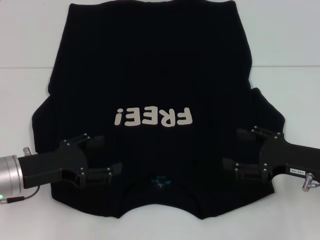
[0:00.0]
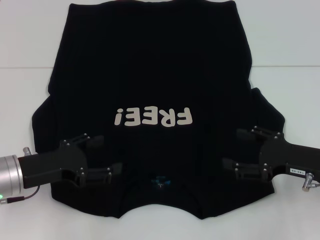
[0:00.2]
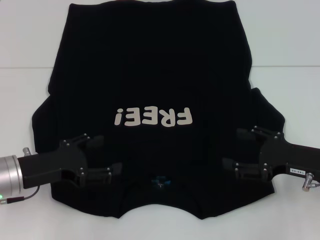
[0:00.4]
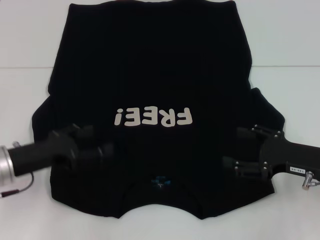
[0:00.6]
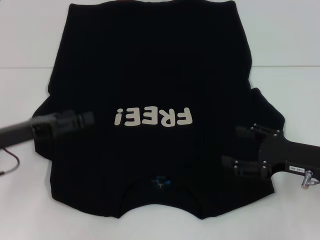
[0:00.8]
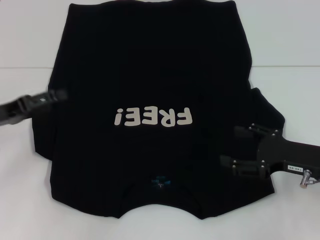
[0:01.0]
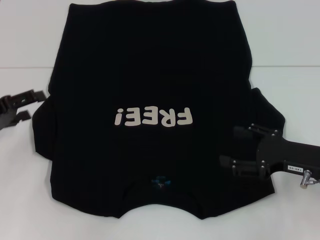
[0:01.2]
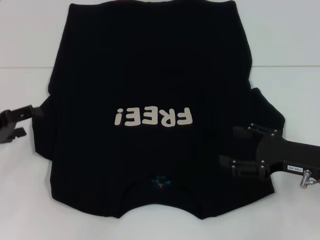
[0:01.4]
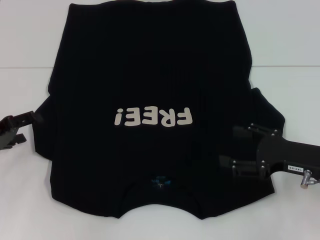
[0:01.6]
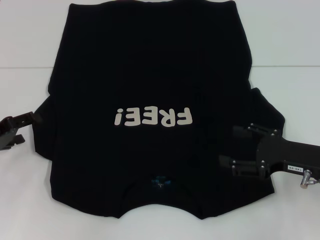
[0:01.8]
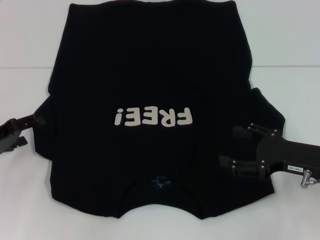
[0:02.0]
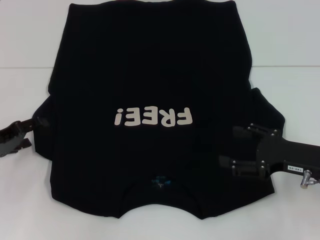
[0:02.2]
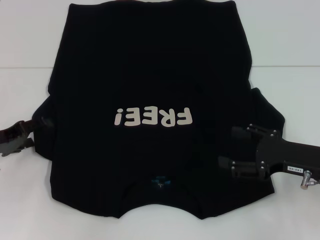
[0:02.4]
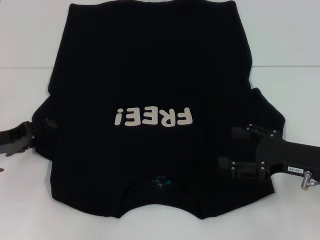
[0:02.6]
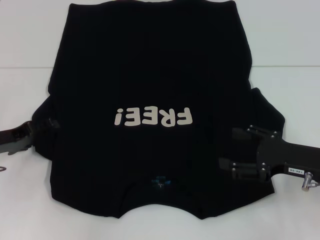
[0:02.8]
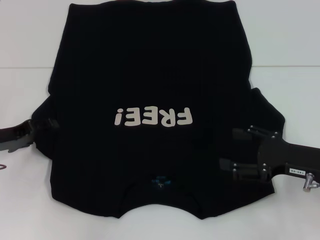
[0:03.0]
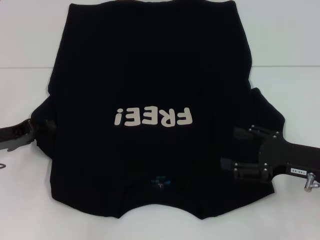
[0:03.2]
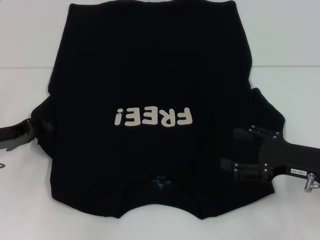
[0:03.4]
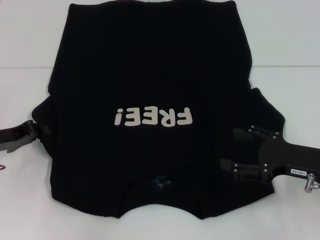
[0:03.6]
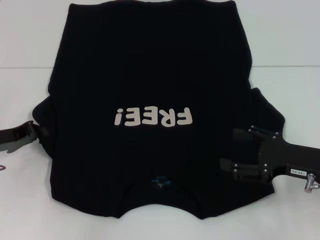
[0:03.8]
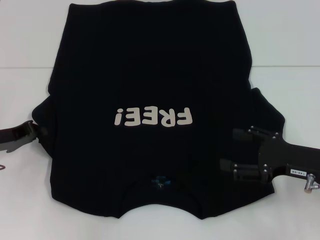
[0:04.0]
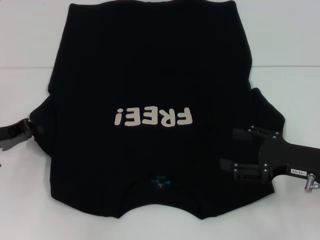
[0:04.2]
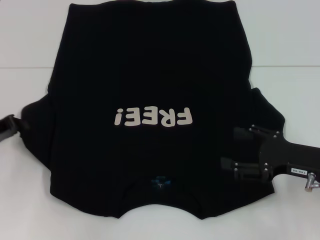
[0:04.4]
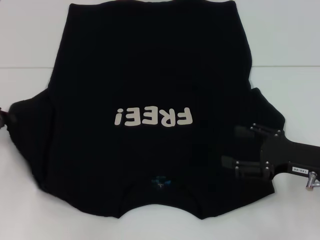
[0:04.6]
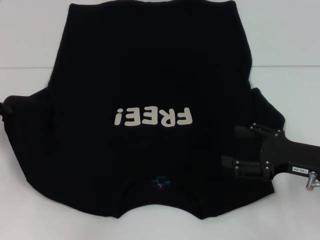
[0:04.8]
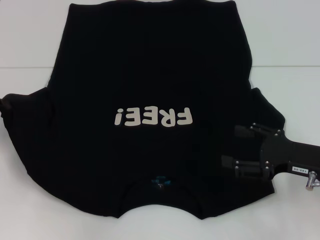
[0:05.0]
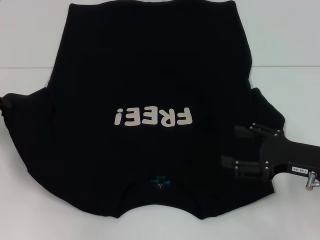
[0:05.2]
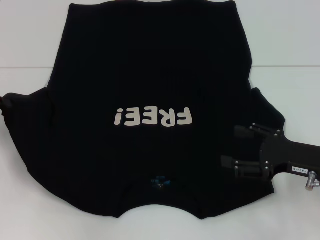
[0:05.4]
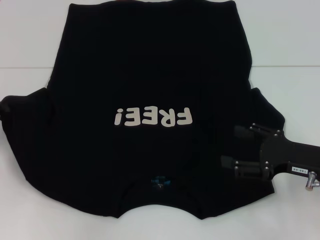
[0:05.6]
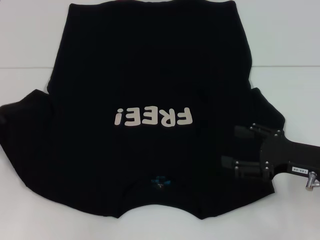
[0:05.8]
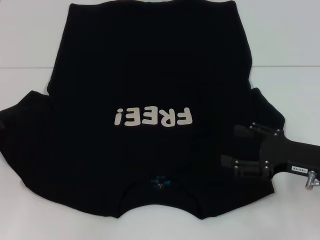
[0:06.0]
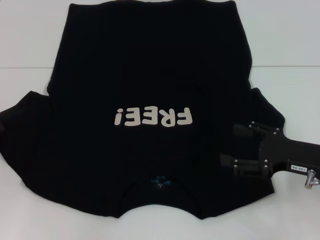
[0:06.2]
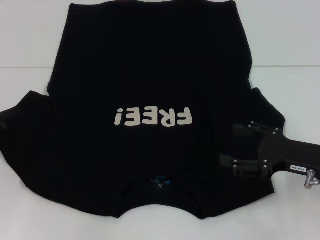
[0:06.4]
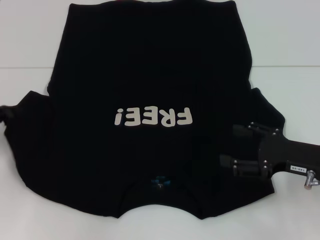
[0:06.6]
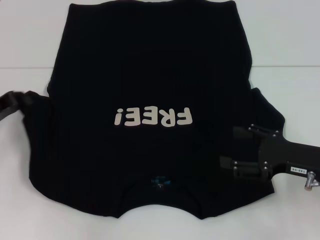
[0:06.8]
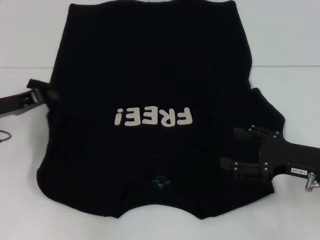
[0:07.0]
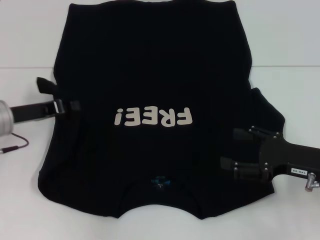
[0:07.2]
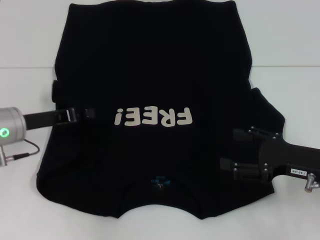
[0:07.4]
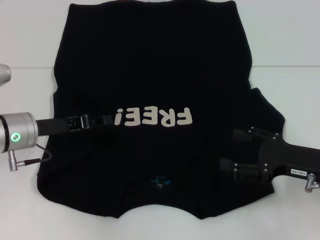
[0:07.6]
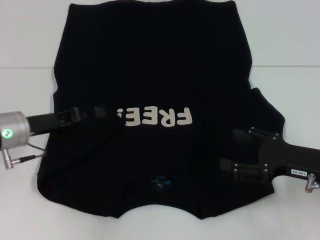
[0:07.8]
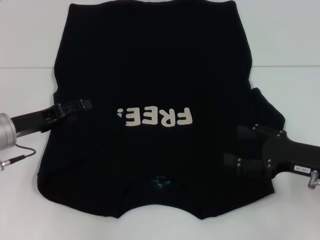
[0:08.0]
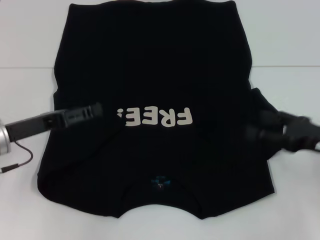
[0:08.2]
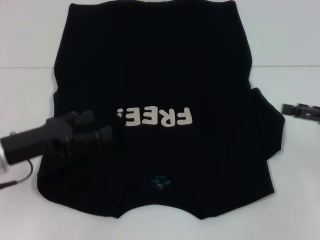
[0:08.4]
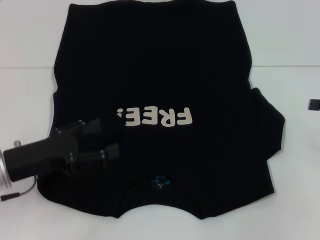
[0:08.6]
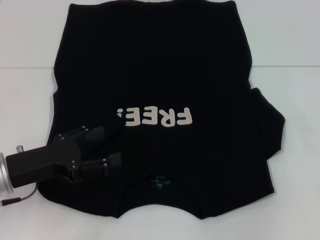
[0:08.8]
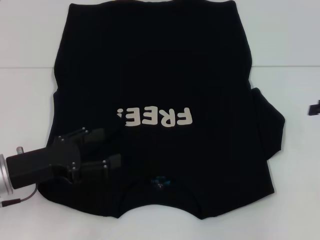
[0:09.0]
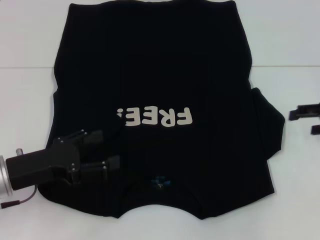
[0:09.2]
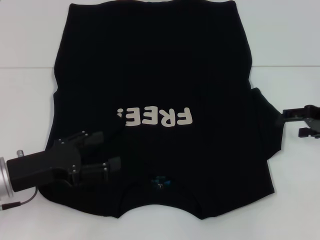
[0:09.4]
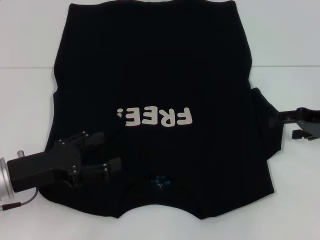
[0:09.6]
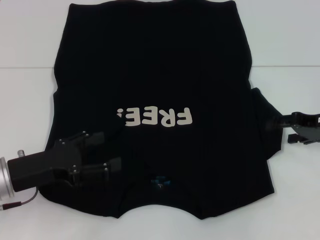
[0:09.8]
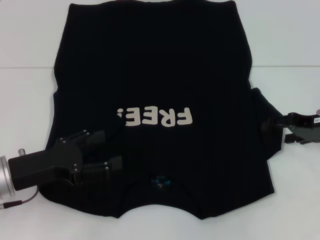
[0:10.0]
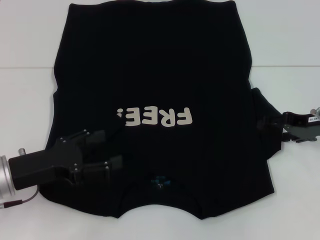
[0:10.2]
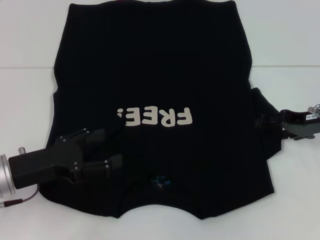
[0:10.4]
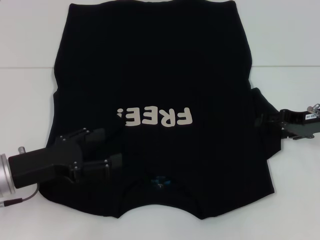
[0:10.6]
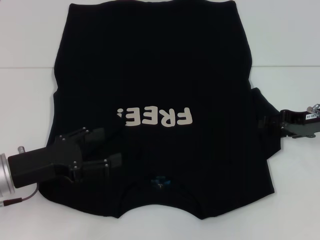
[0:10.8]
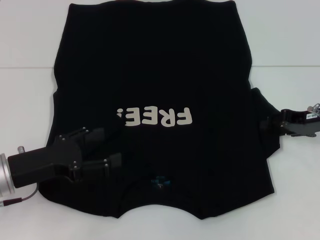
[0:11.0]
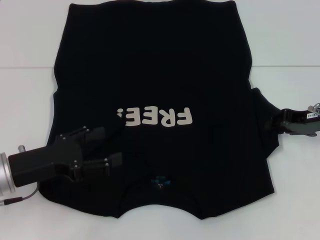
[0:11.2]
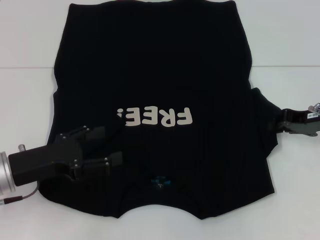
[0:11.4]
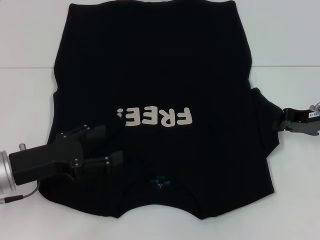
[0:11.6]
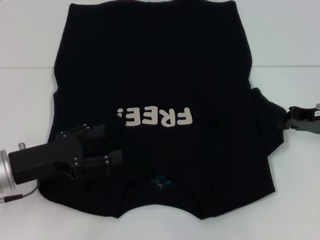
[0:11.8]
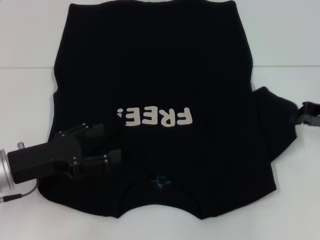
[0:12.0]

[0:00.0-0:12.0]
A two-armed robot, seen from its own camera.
Step, 0:00.0 to 0:07.6: Fold the bottom left sleeve with your left hand.
0:00.0 to 0:01.6: The left gripper is displaced to the left by roughly 10 cm.
0:01.6 to 0:03.0: There are only small adjustments of the grippers.
0:03.0 to 0:04.4: The left gripper closes.
0:04.4 to 0:06.0: There are only small adjustments of the grippers.
0:06.0 to 0:07.6: The left gripper goes about 15 cm to the right.
0:07.6 to 0:09.0: The right gripper moves to the right, upward and forward, roughly 15 cm, while the left gripper goes approximately 10 cm backward, and opens.
0:09.0 to 0:10.4: The right gripper goes approximately 10 cm to the left.
0:10.4 to 0:12.0: The right gripper closes its fingers.

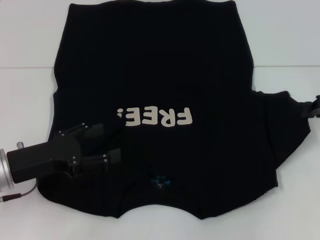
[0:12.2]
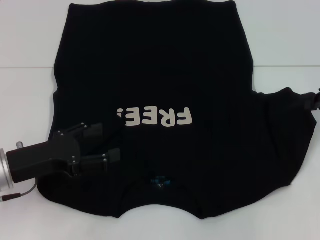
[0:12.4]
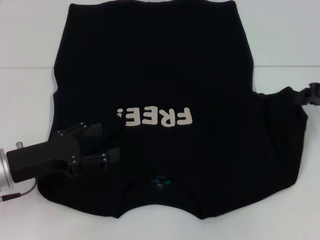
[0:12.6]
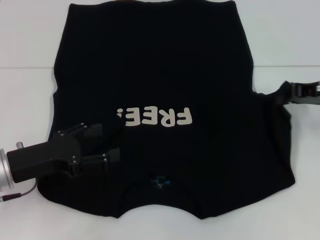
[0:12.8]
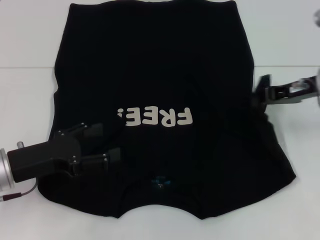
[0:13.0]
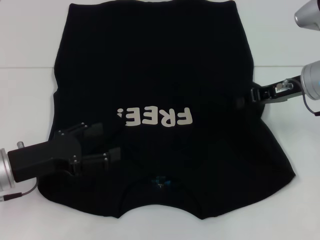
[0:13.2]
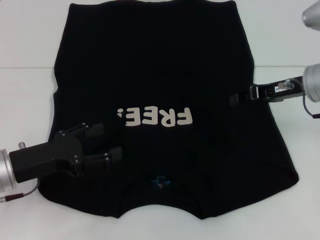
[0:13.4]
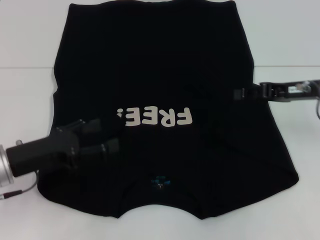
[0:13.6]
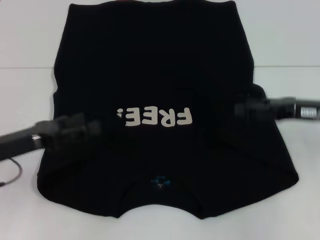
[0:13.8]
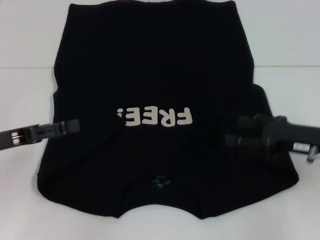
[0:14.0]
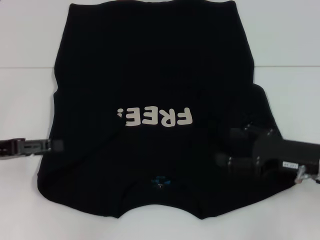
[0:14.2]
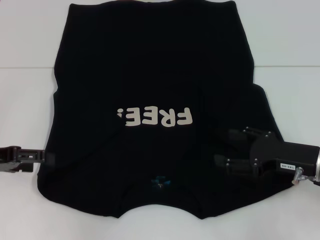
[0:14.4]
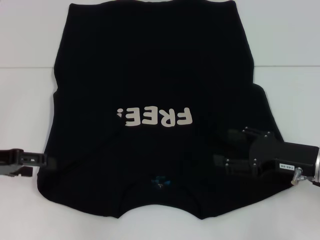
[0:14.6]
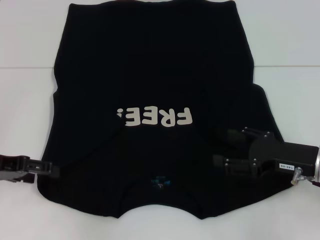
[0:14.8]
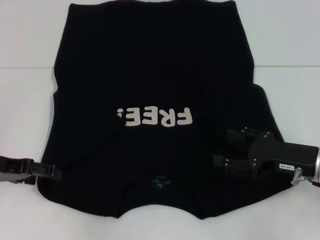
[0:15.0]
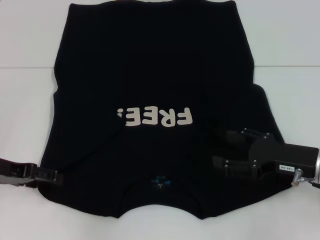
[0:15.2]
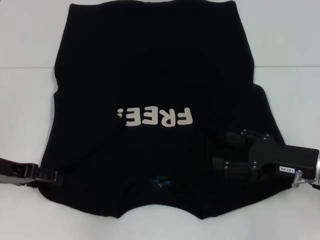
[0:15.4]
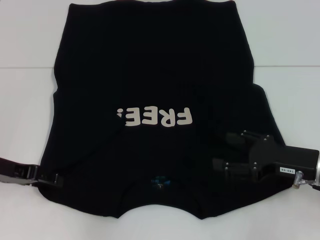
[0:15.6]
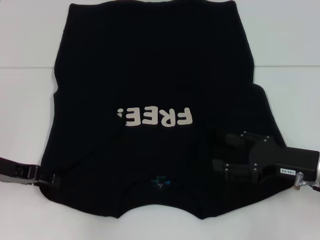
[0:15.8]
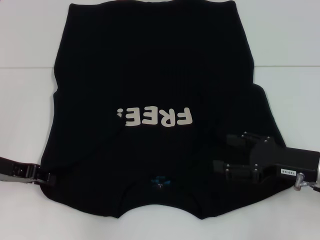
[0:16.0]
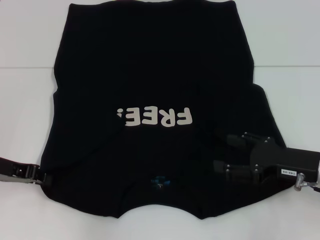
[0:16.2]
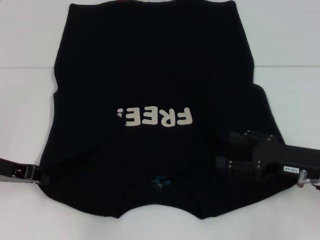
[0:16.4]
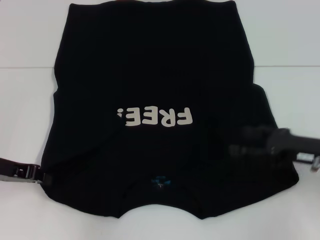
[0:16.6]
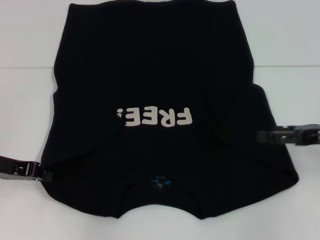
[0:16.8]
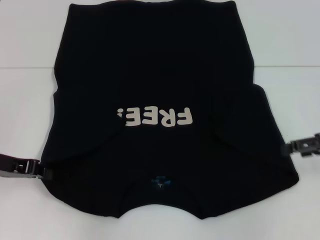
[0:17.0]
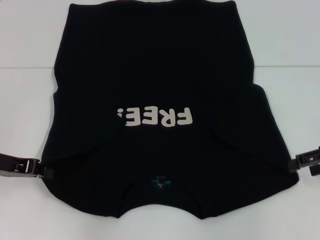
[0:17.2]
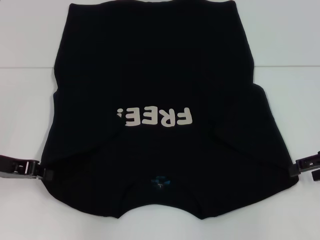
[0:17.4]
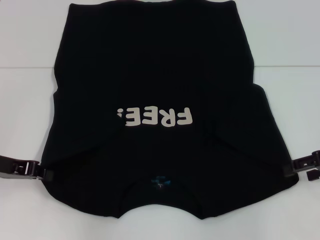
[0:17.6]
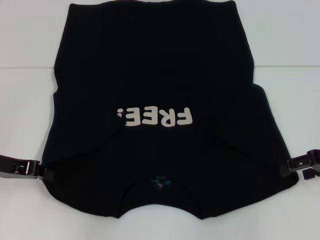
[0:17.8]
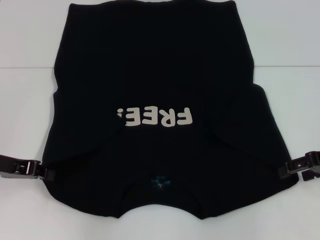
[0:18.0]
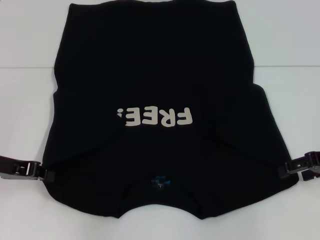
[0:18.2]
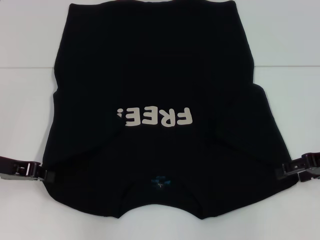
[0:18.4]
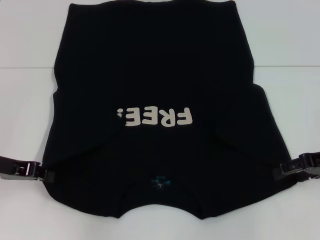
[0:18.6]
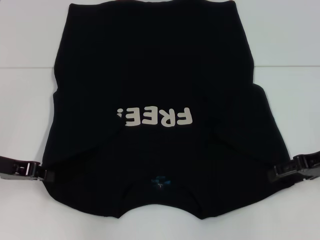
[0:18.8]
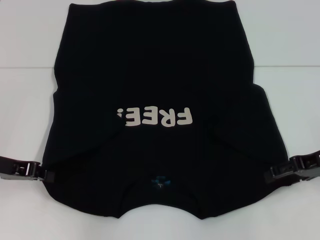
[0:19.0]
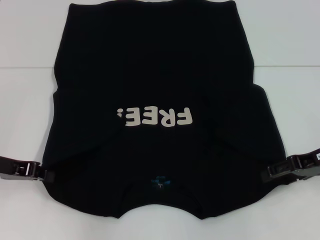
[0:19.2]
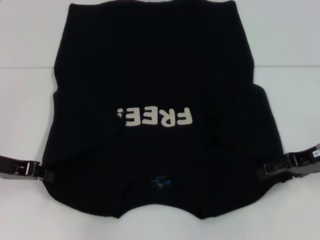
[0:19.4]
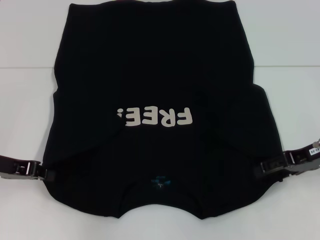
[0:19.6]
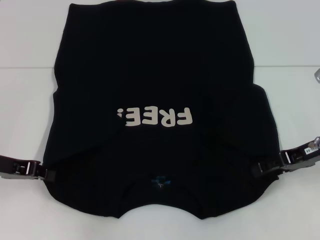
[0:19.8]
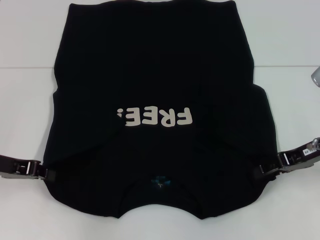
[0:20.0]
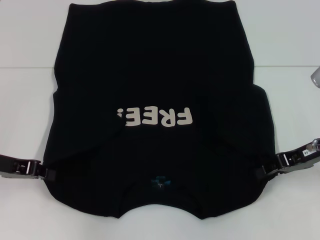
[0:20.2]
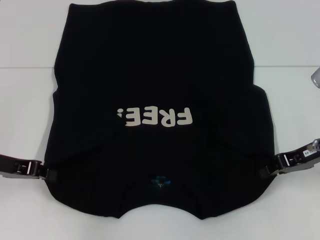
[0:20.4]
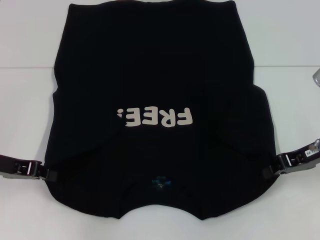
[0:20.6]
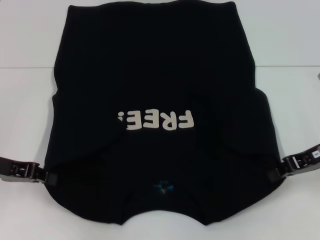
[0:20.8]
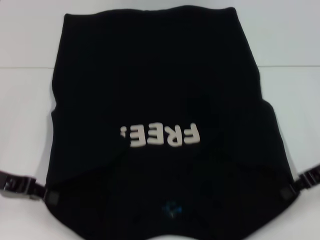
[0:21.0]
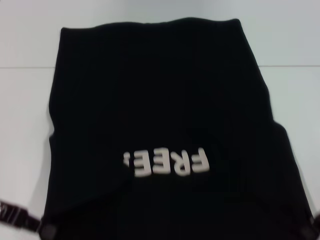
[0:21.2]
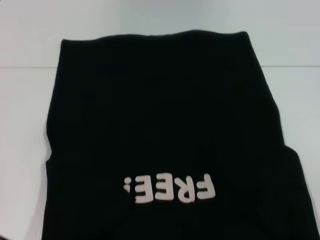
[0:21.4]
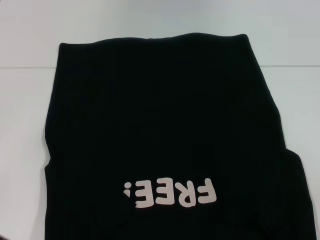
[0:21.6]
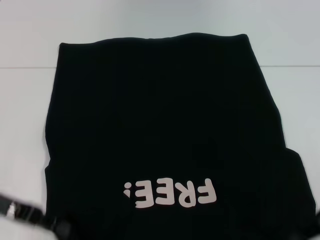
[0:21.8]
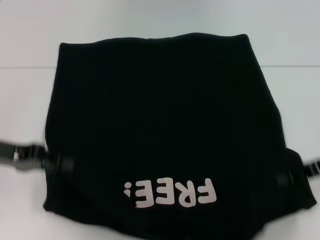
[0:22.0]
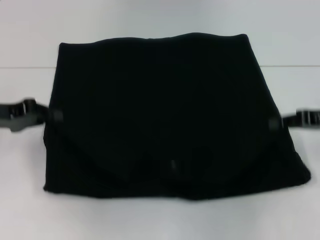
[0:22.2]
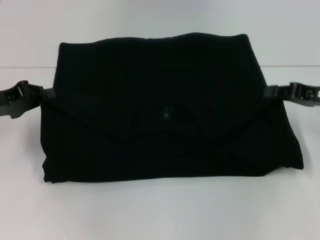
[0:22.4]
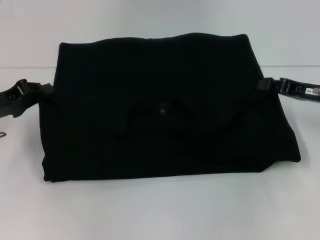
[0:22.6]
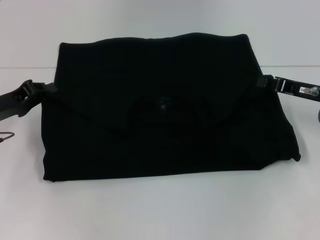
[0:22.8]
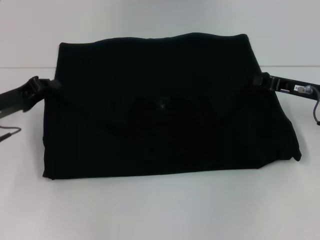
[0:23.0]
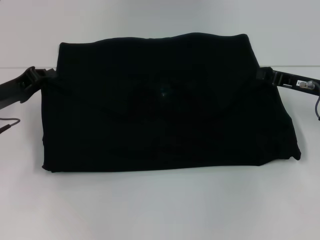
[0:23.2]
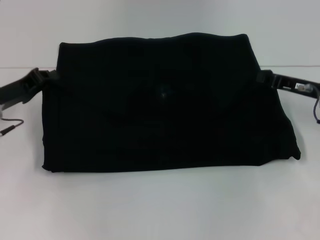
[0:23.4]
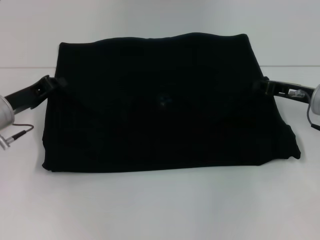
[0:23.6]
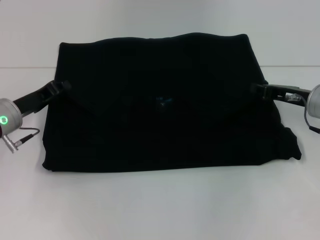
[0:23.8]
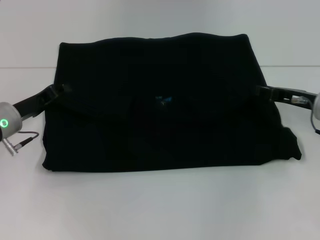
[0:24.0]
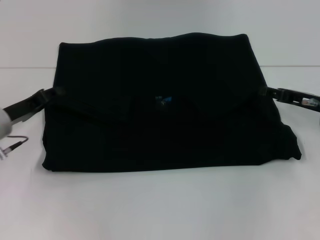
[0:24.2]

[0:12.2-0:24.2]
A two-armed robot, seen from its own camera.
Step, 0:13.8 to 0:16.6: Grab the bottom left corner with your left hand.
Step, 0:16.8 to 0:20.4: Grab the bottom right corner with your right hand.
Step, 0:20.6 to 0:24.2: Fold the clothes with your left hand.
Step, 0:20.6 to 0:24.2: Fold the clothes with your right hand.
0:12.2 to 0:13.8: The right gripper goes about 5 cm to the left, and opens up.
0:13.8 to 0:15.2: The right gripper travels downward and backward by approximately 10 cm, and opens its fingers.
0:15.2 to 0:16.6: The left gripper closes.
0:16.6 to 0:18.2: The right gripper ends up roughly 5 cm from where it was.
0:18.2 to 0:19.8: There are only small adjustments of the grippers.
0:19.8 to 0:21.2: The right gripper ends up some 5 cm from where it was, and closes its fingers.
0:21.2 to 0:22.6: The two grippers go roughly 5 cm forward.
0:22.6 to 0:24.2: The left gripper ends up some 5 cm from where it was.
